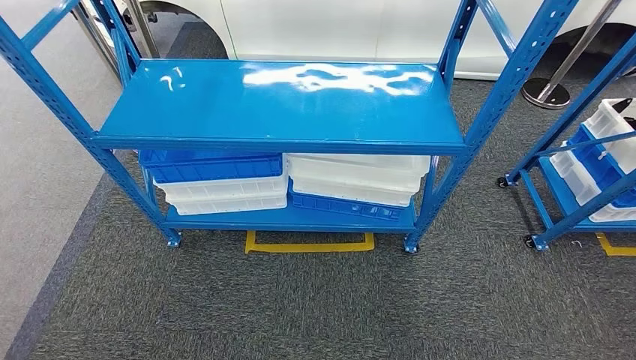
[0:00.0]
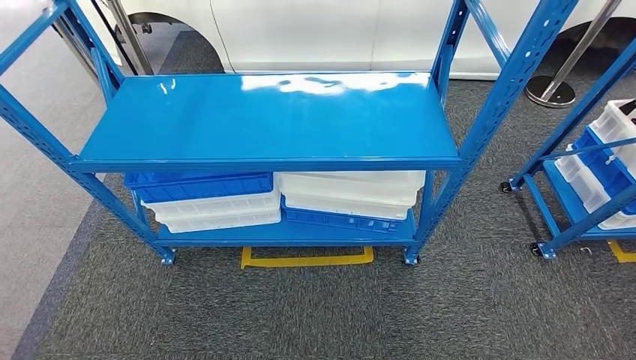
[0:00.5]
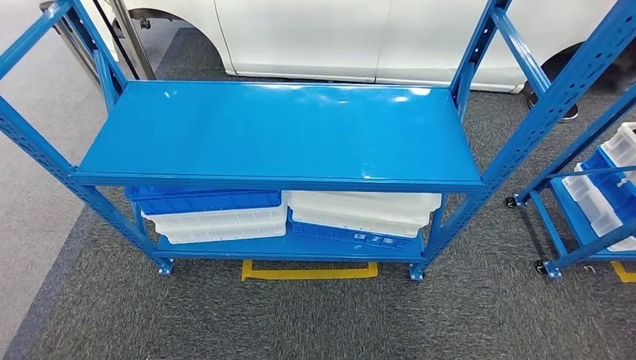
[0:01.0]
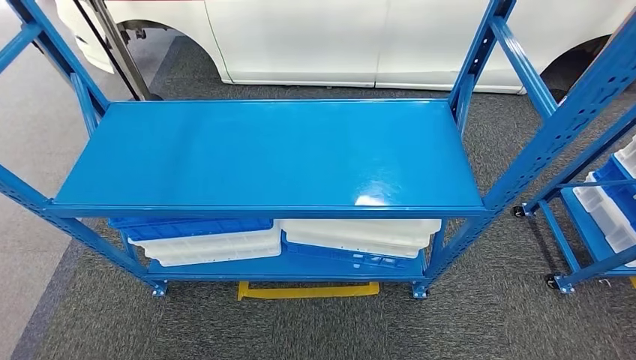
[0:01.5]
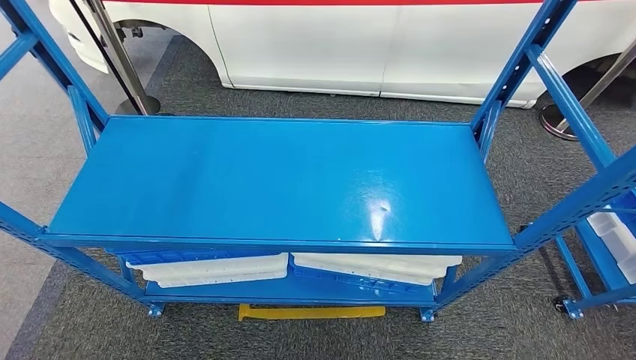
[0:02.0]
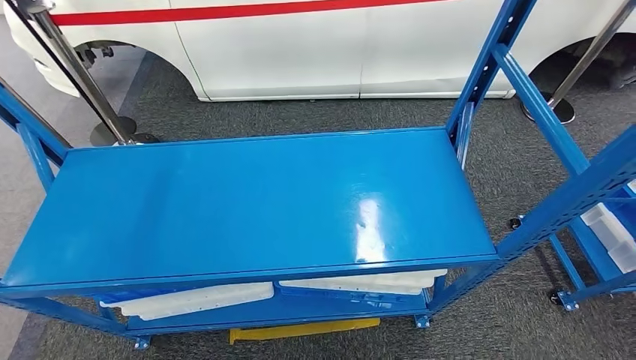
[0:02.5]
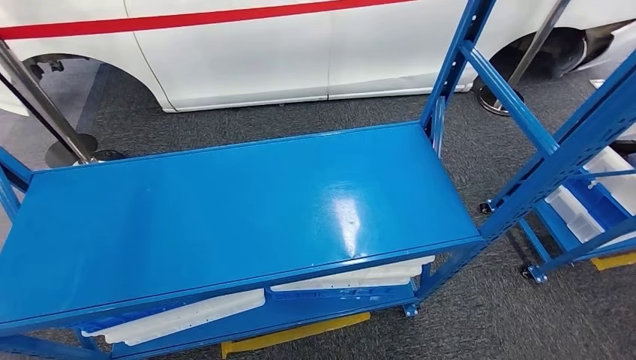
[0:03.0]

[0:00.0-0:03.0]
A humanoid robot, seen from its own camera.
Step, 0:00.0 to 0:03.0: Move to the initial position of the shelf.
